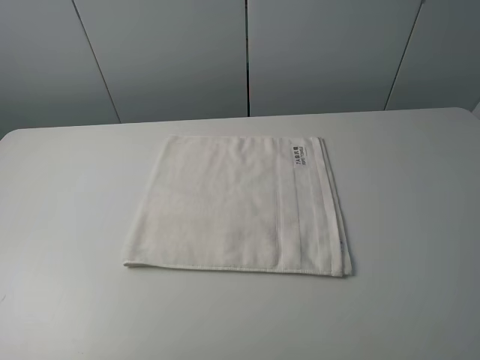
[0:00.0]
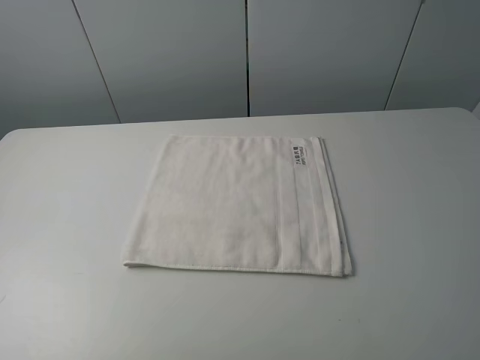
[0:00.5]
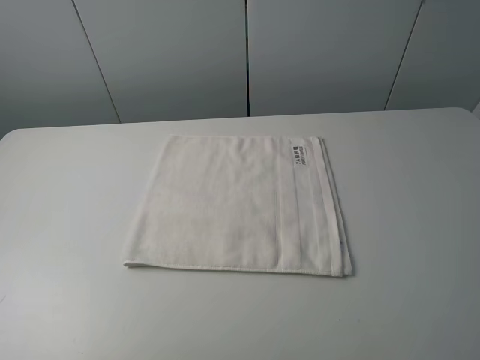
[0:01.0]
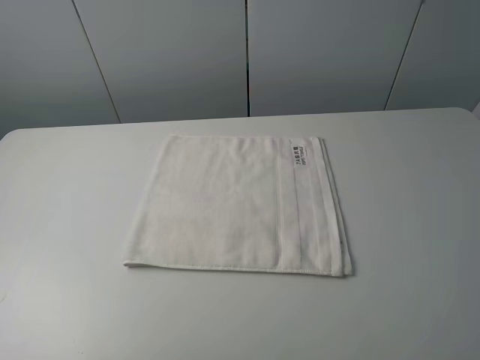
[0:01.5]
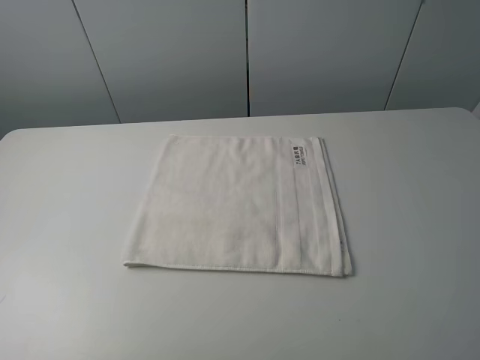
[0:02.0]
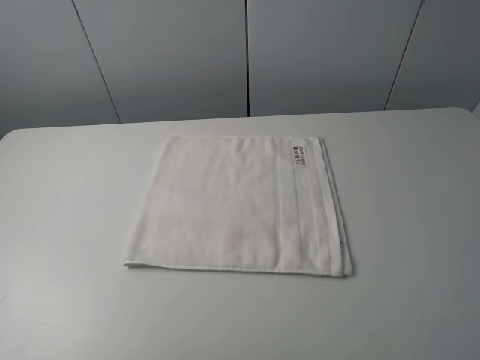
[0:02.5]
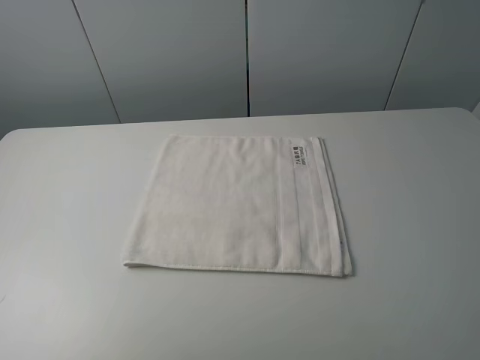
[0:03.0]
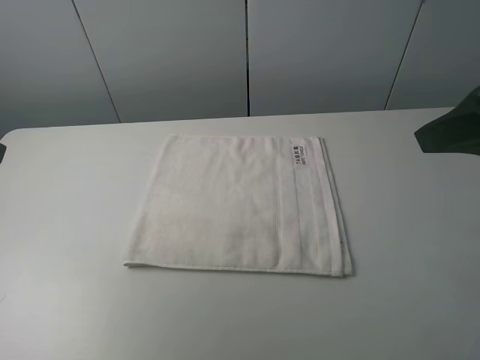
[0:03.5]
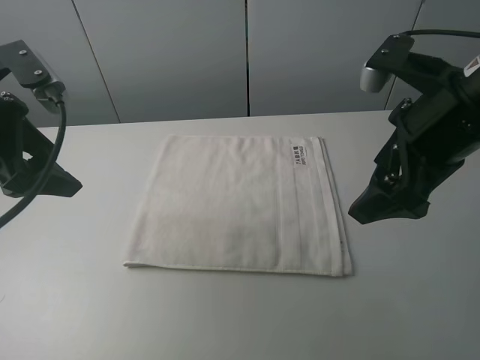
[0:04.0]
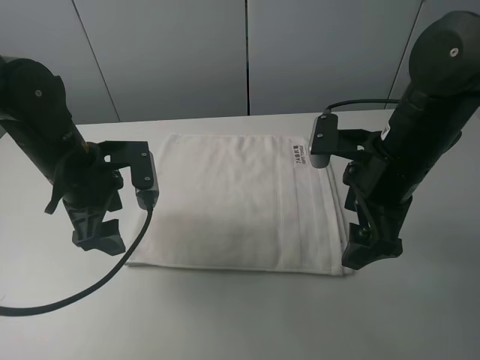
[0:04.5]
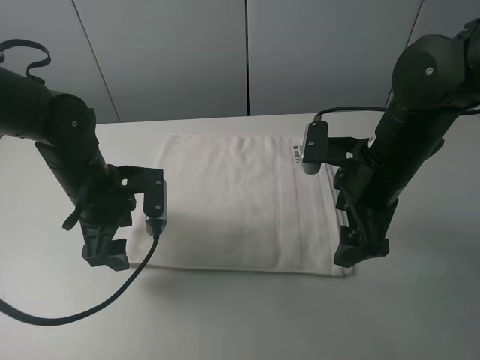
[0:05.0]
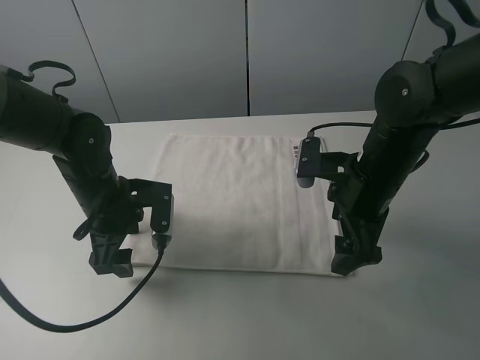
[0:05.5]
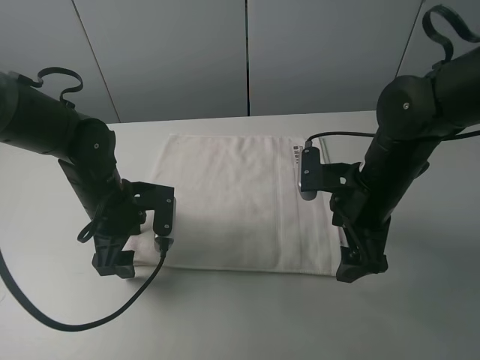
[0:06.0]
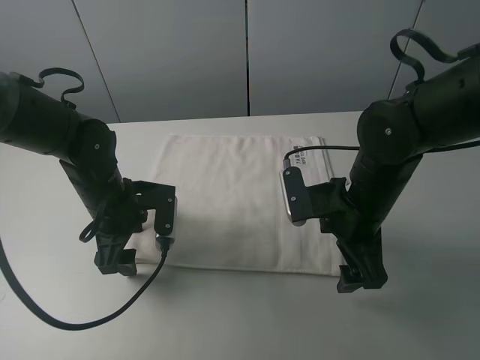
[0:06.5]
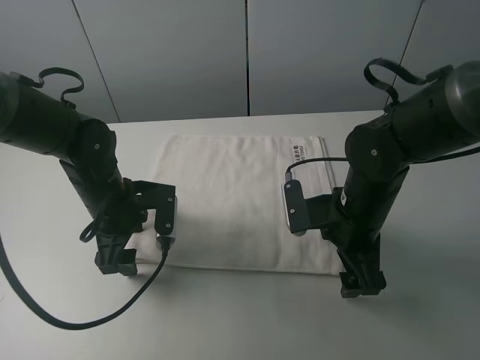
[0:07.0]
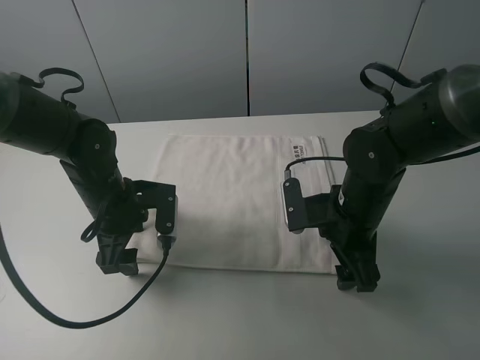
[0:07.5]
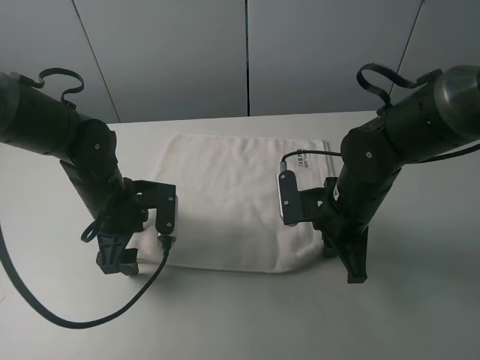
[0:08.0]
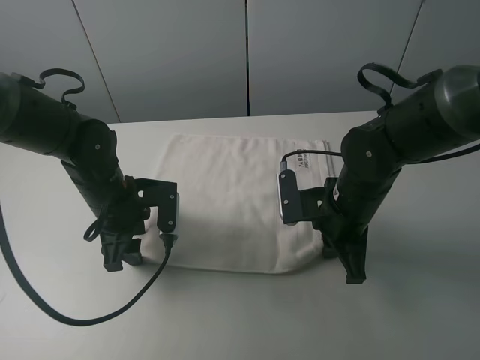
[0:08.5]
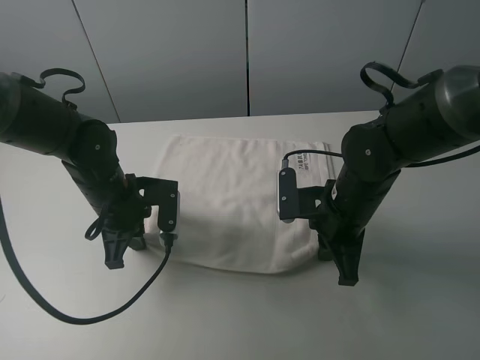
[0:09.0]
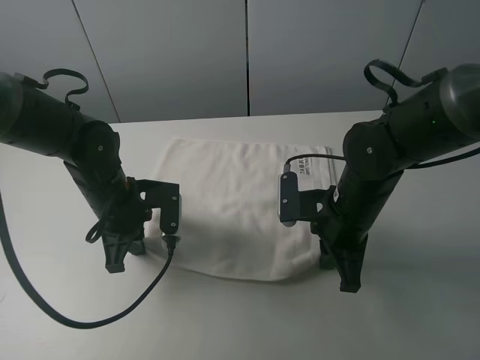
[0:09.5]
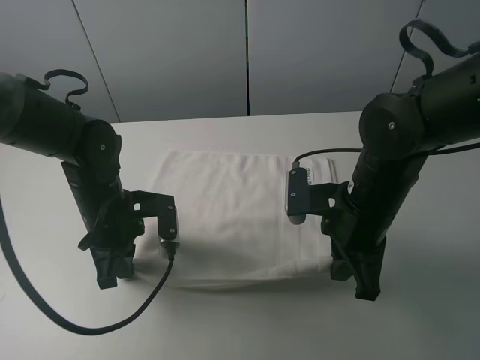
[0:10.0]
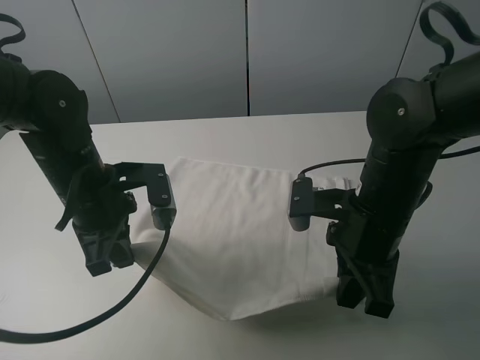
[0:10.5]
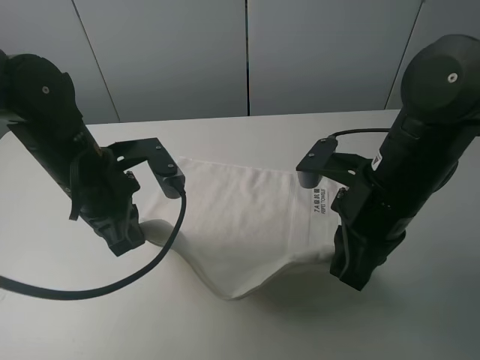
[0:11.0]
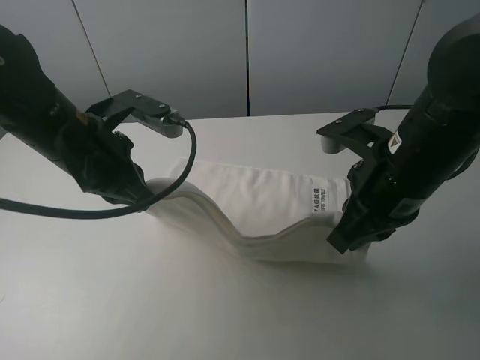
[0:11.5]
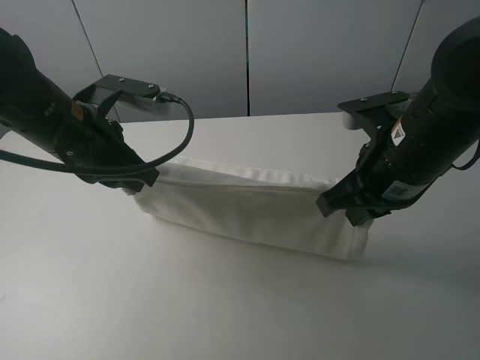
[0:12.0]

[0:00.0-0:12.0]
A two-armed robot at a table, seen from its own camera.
Task of the whole recording: fold the towels on the table.
Step, 0:00.0 to 0:07.5: Grasp the white towel with the right gripper.
Step, 0:08.0 to 0:09.0: Grasp the white towel with the left gripper.
0:00.0 to 0:02.0: Neither gripper changes place.
0:02.0 to 0:04.0: The right gripper travels forward and to the left by some 25 cm, while the left gripper is displaced forward and to the right by approximately 25 cm.
0:04.0 to 0:06.0: The right gripper heads downward, covering about 10 cm, while the left gripper heads downward and to the right, covering approximately 20 cm.
0:06.0 to 0:08.0: The right gripper closes its fingers.
0:08.0 to 0:10.0: The left gripper closes its fingers. Meanwhile the right gripper moves roughly 5 cm.
0:10.0 to 0:12.0: The right gripper moves upward, some 5 cm. Meanwhile the left gripper travels upward by roughly 10 cm.

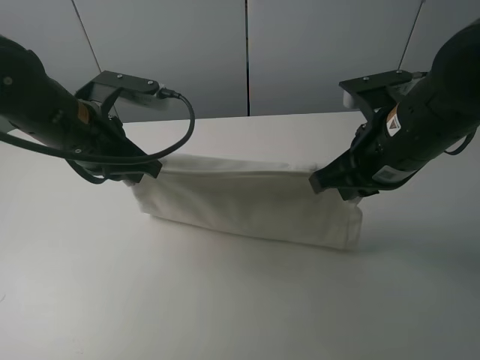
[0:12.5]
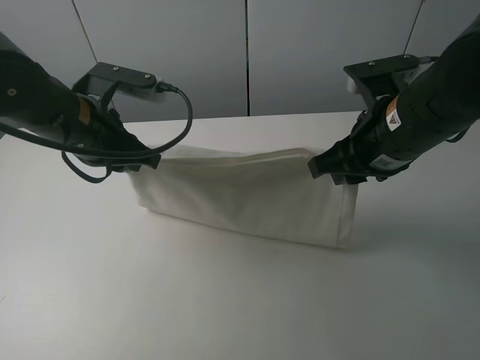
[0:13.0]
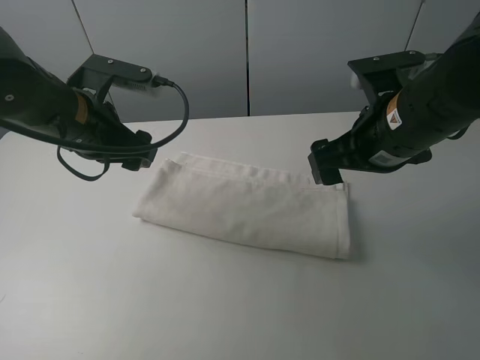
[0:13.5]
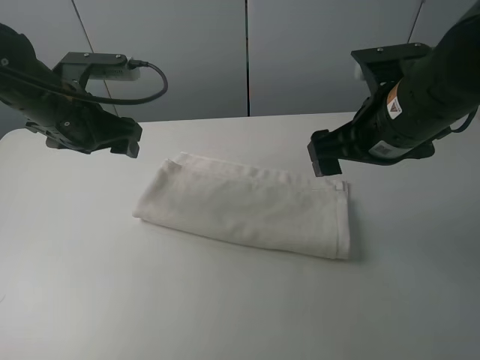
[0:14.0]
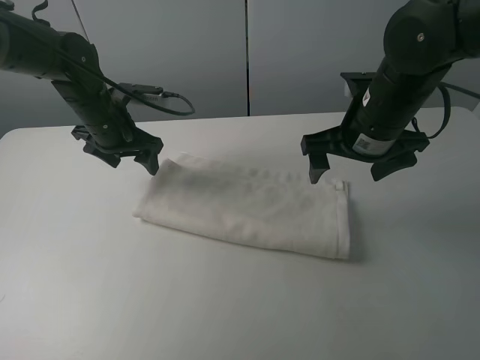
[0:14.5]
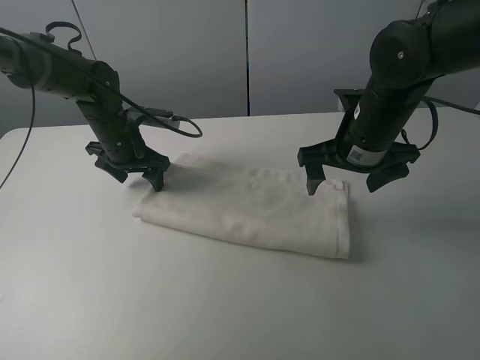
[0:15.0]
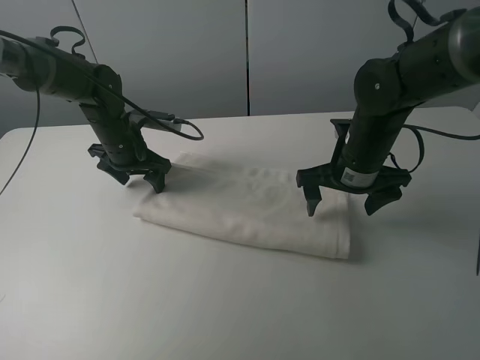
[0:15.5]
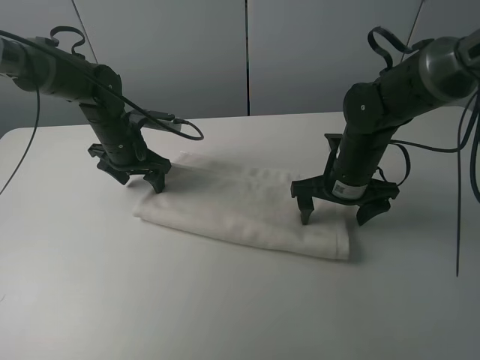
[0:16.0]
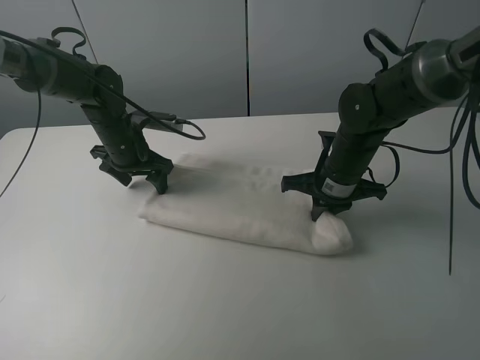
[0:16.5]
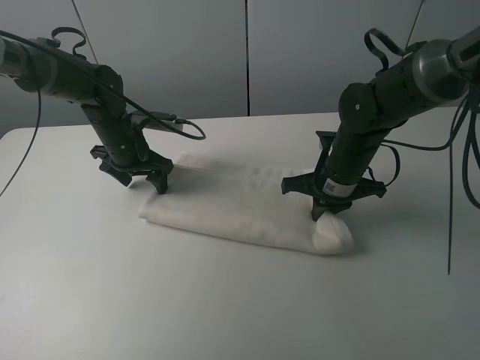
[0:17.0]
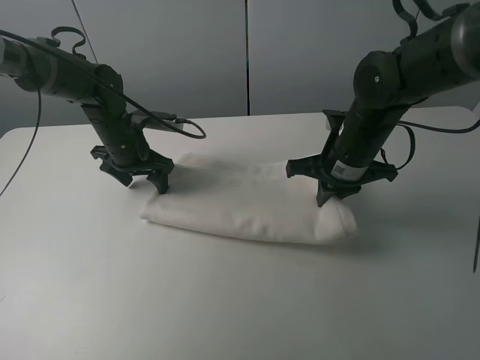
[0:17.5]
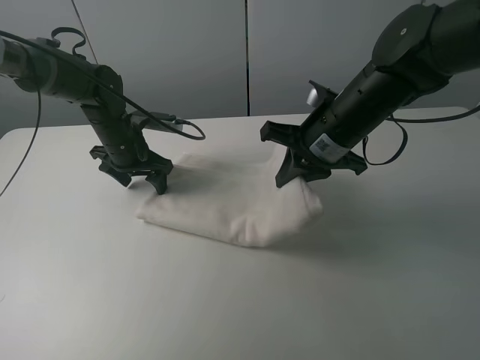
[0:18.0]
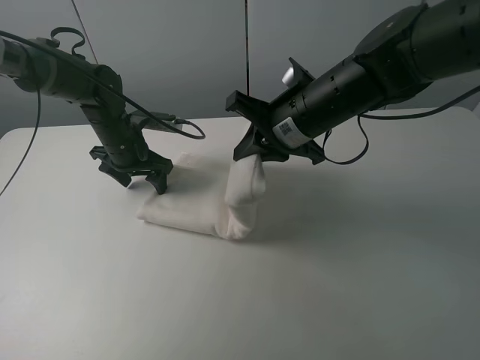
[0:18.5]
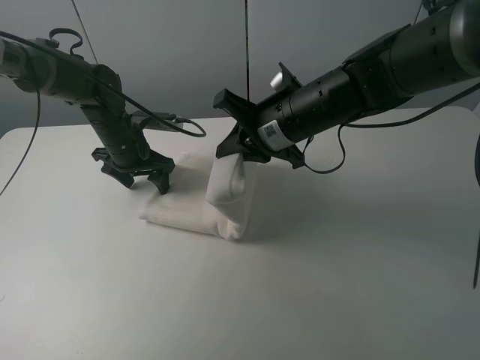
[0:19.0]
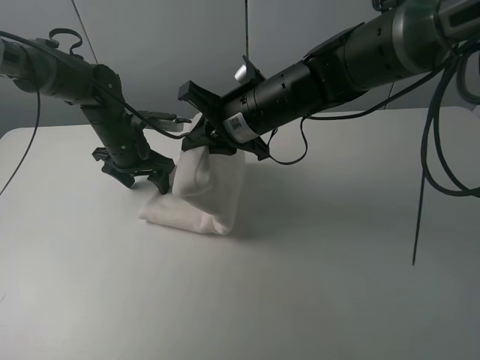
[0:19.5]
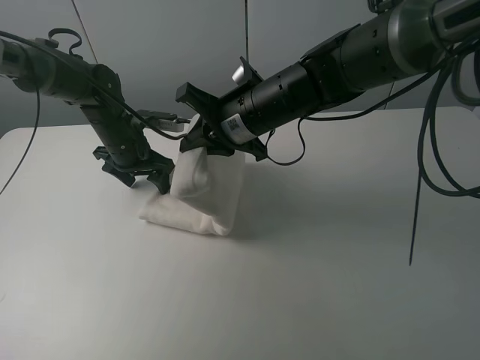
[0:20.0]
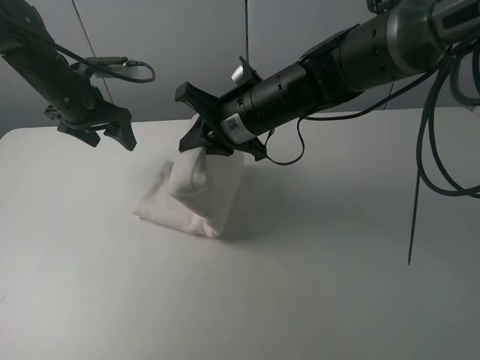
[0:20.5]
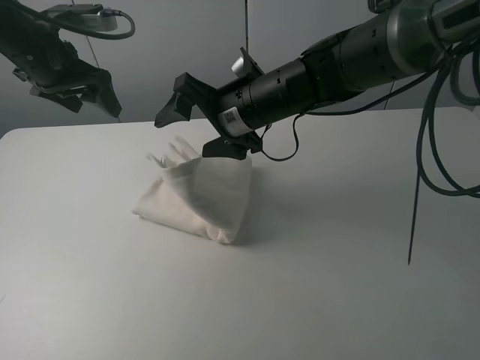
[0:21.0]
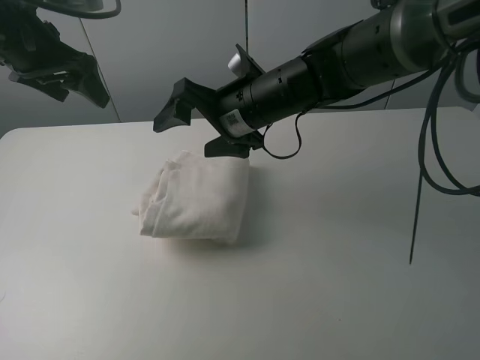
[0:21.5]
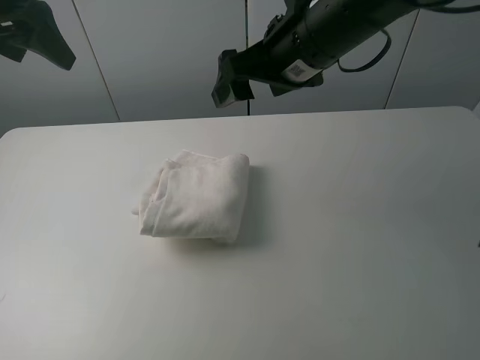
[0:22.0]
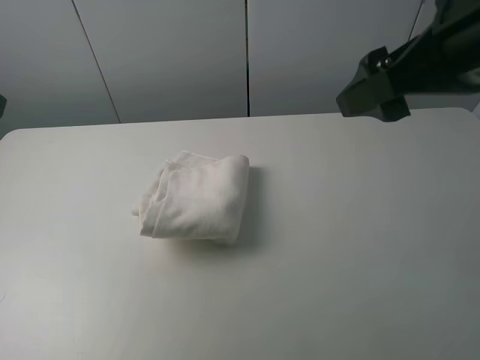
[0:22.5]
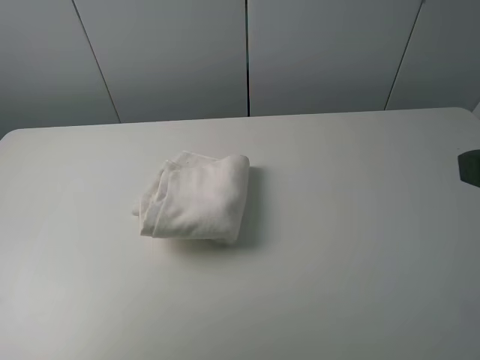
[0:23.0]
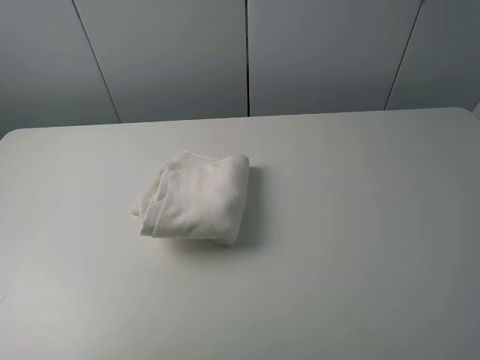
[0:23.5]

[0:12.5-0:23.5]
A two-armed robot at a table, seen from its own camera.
Task of the whole recording: fold the towels on the table.
Step, 0:13.5 to 0:15.0: Press on the white towel with the left gripper.
Step, 0:15.5 to 0:21.0: Fold the white towel from right to left with right gripper.
0:12.5 to 0:14.5: The right gripper shifts roughly 5 cm forward, and opens; the left gripper moves forward and downward, approximately 15 cm, and opens its fingers.
0:14.5 to 0:16.0: The left gripper changes place by some 5 cm, while the right gripper travels downward by some 10 cm.
0:16.0 to 0:18.0: The right gripper moves upward, roughly 10 cm, and closes.
0:18.0 to 0:20.0: The right gripper heads to the left, covering some 10 cm.
0:20.0 to 0:21.5: The left gripper shifts roughly 20 cm upward; the right gripper opens up.
0:21.5 to 0:23.5: The left gripper heads backward and to the left, covering about 35 cm; the right gripper heads backward and to the right, covering approximately 40 cm.

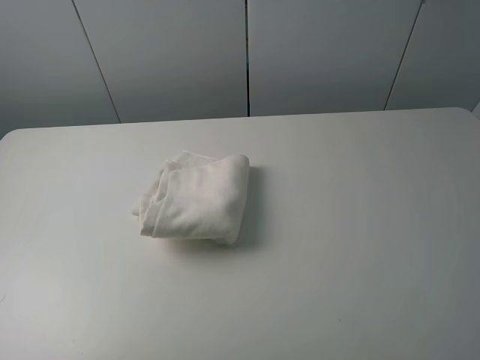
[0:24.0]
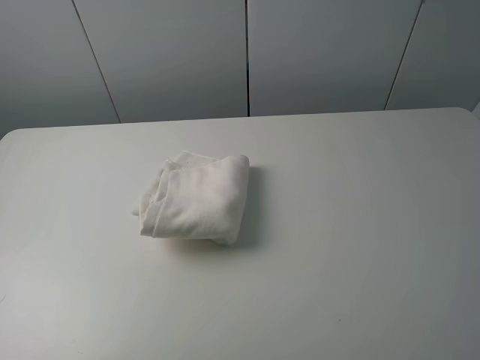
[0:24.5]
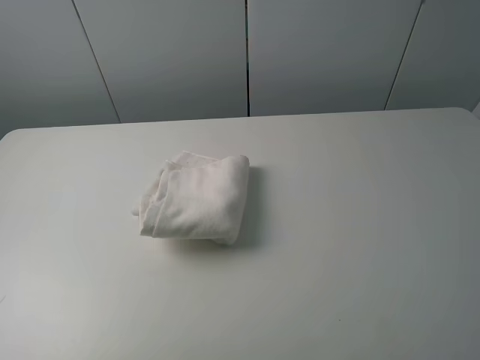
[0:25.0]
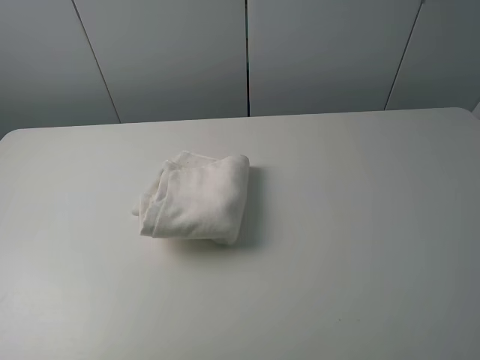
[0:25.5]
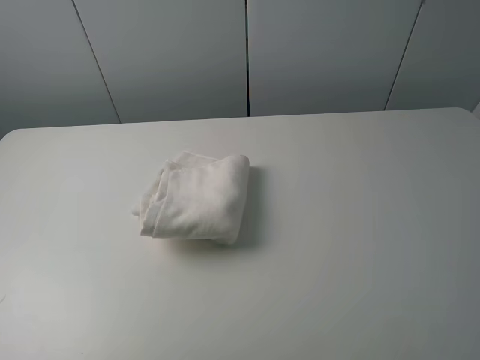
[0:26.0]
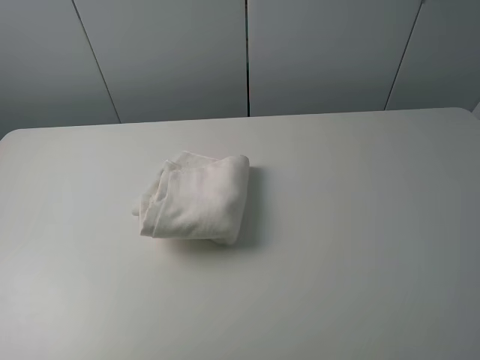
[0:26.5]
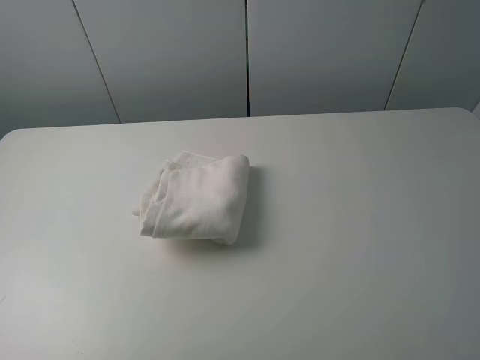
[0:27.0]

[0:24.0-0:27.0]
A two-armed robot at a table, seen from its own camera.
Task of the whole recording: fold the towels on the table.
0:25.5 to 0:27.0: Both grippers stay put.
